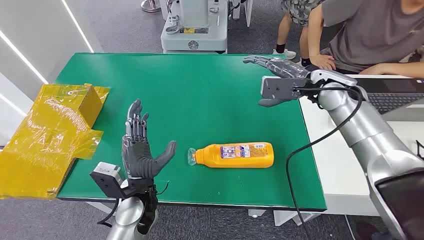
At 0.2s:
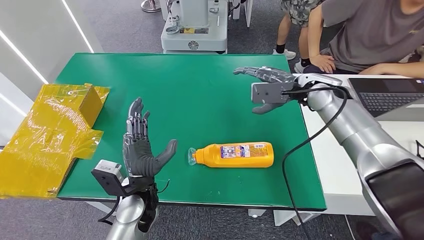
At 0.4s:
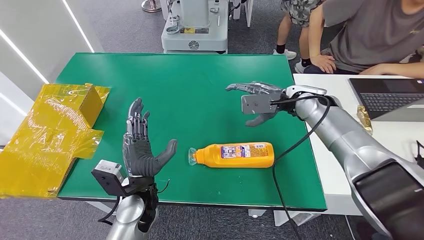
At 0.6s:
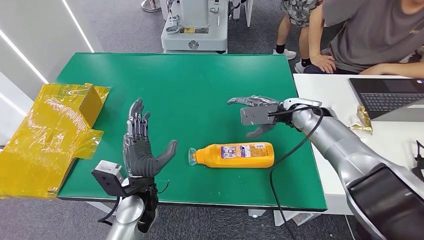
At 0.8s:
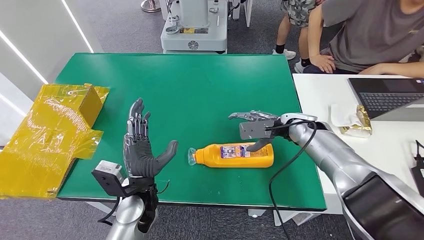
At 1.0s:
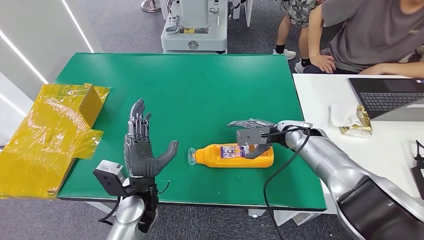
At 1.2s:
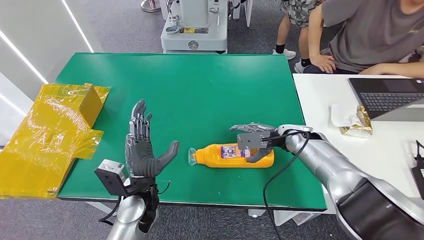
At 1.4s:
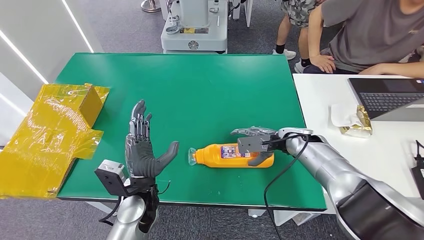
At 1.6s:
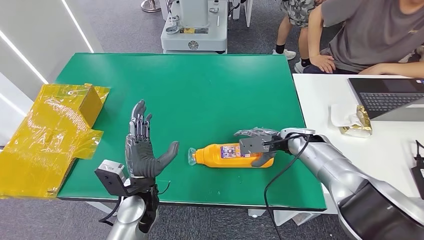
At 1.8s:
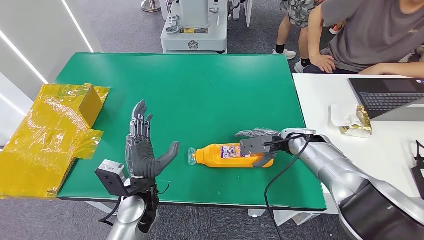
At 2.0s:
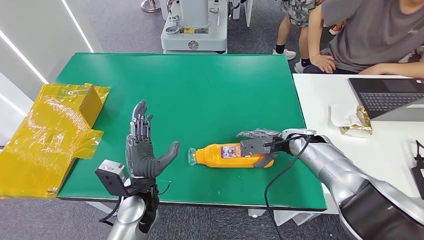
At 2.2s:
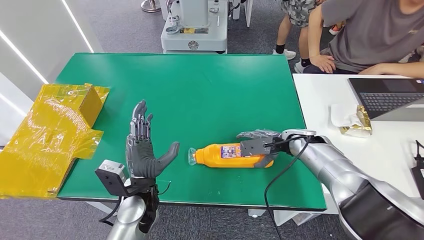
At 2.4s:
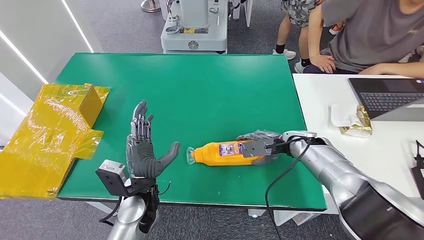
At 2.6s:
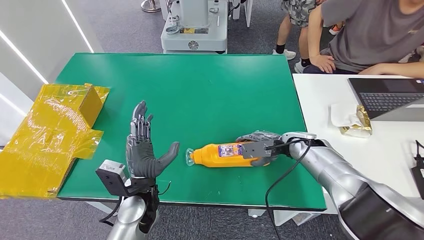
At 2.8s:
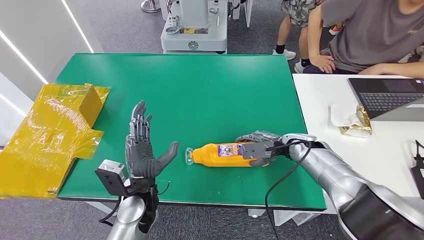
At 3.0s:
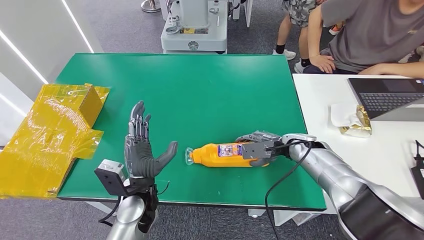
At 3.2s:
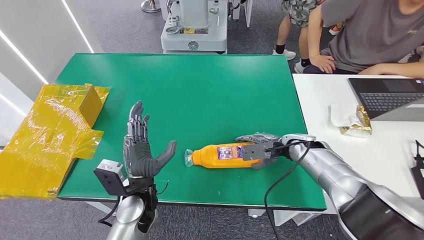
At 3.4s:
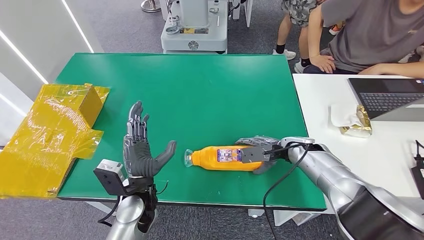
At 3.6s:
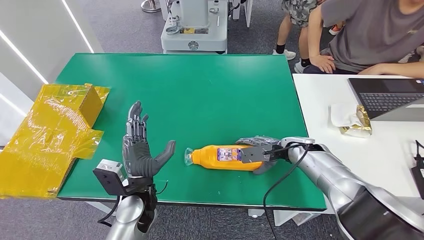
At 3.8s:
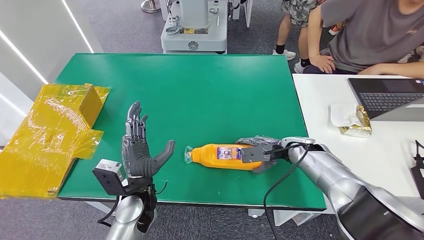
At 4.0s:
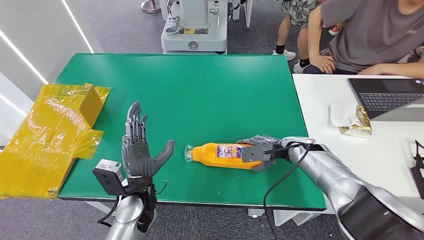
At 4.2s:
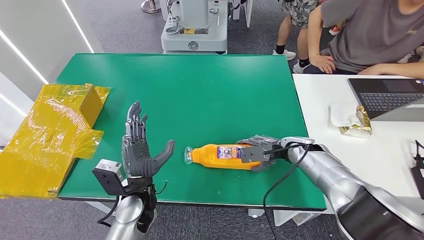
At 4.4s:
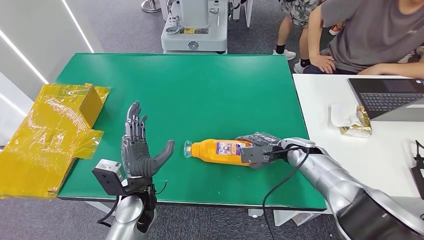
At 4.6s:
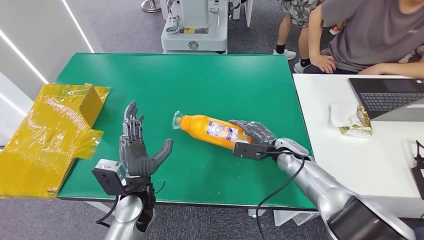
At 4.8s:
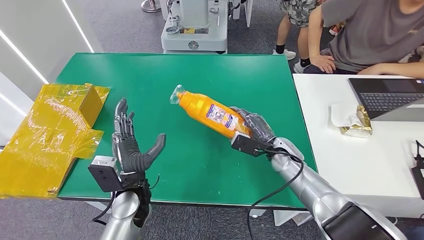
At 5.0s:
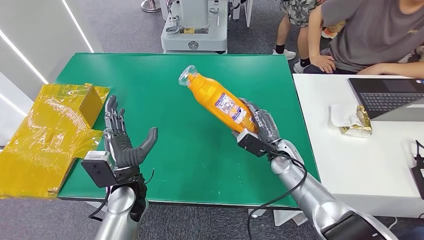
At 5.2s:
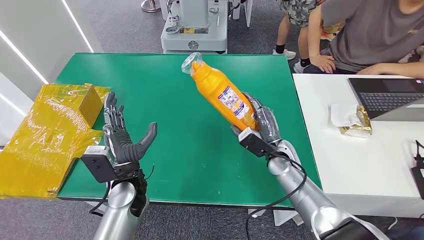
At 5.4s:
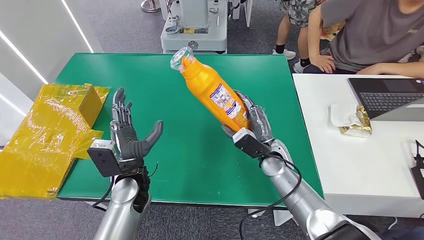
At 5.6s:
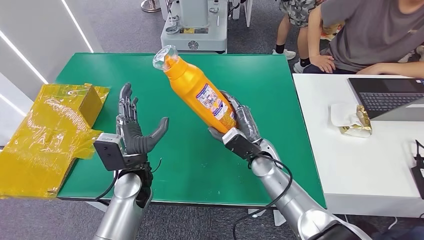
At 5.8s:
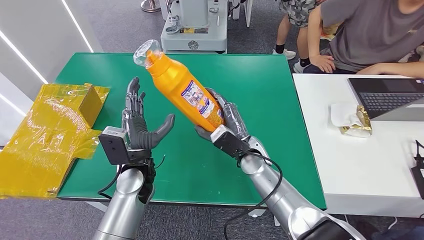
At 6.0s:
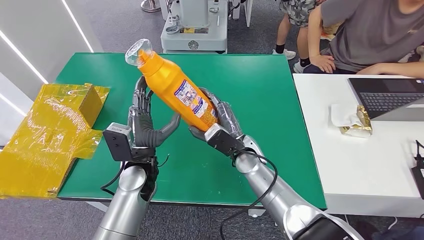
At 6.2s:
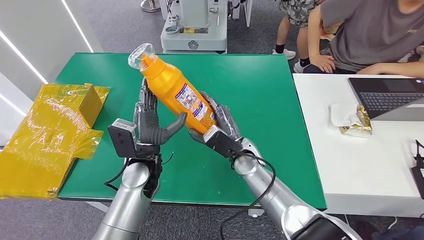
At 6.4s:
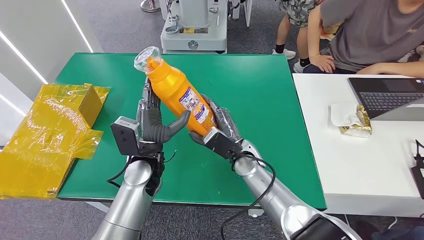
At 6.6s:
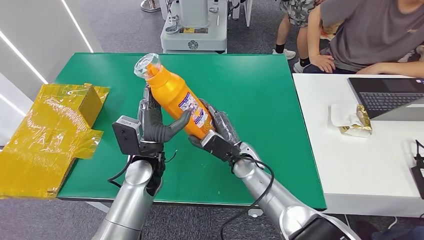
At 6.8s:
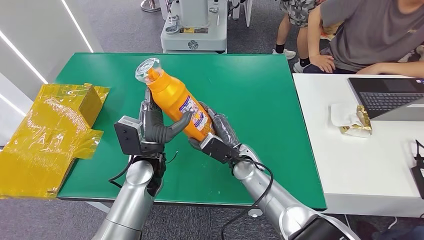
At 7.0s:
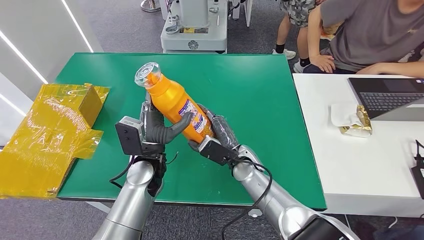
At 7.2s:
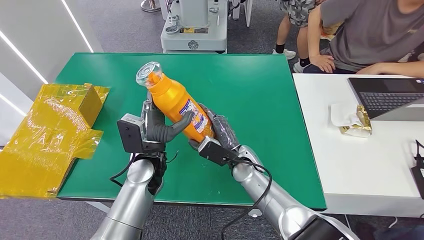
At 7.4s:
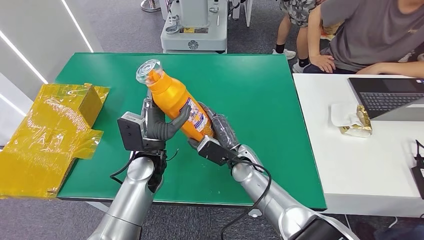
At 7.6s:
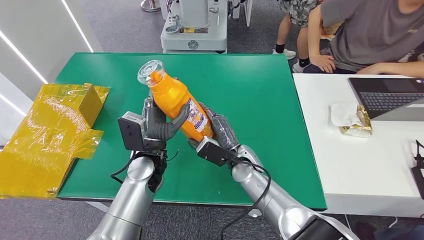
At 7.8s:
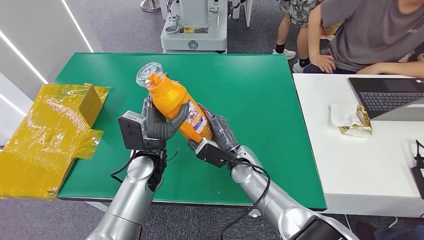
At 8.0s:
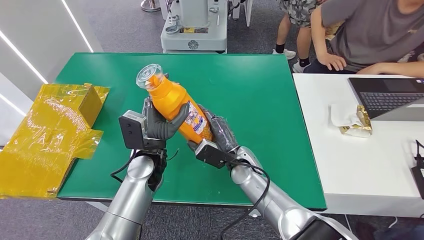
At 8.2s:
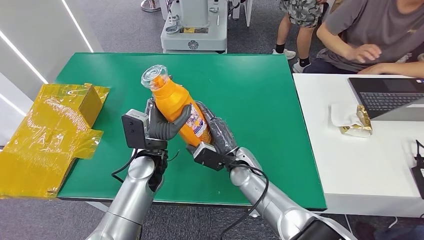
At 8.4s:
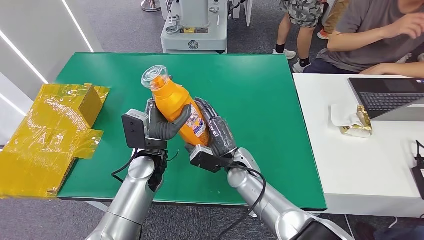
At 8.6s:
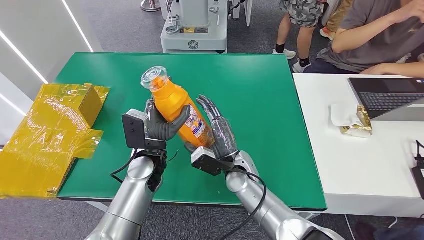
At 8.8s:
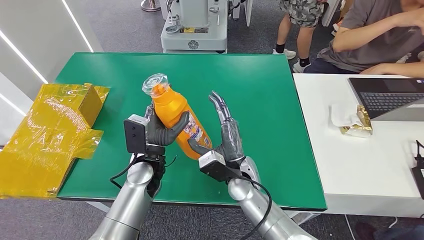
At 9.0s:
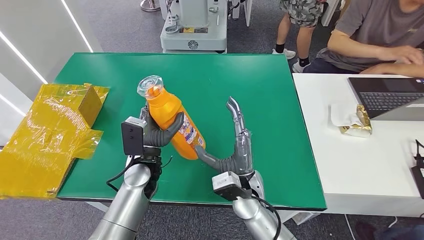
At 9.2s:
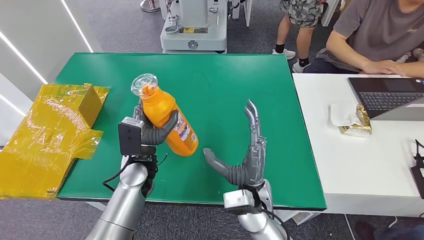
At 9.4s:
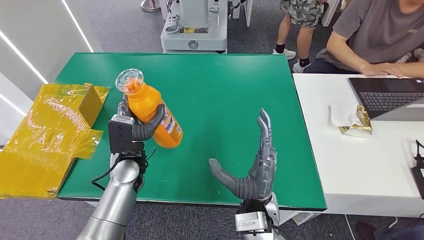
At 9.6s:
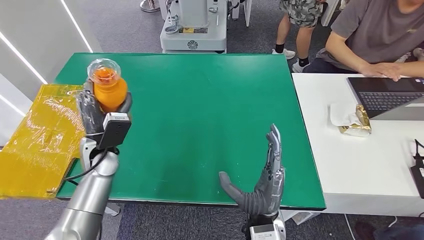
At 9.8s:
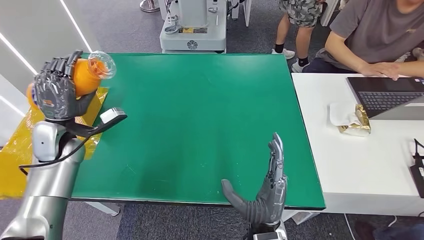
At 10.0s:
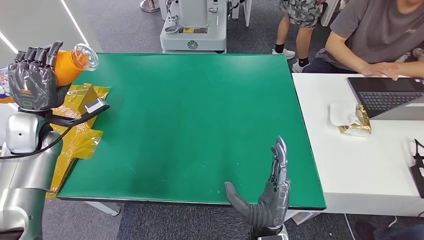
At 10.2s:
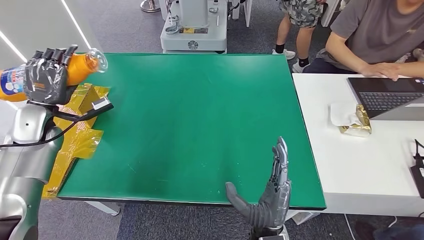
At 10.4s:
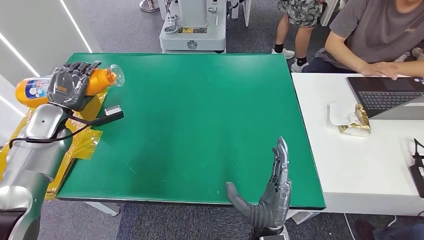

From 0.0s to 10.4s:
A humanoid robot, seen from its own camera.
Step, from 0.0s to 6.0s: Pick up the bottle from the table.
Step, from 6.4s to 10.4s: Turn the bottle to the front side.
From 1.4s to 4.4s: The hands move only a little.
From 4.4s to 6.0s: The left hand heads forward, covering about 5 cm. Meanwhile the right hand shifts roughly 15 cm to the left.
From 6.0s to 7.4s: The hands move only a little.
From 7.4s to 9.0s: The right hand heads backward, covering some 10 cm.

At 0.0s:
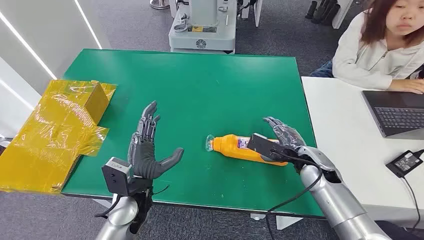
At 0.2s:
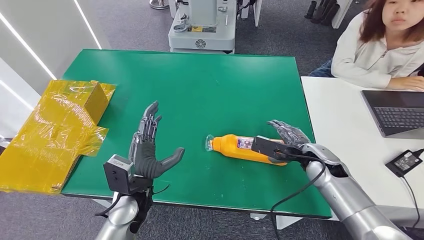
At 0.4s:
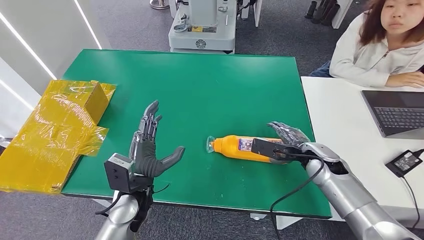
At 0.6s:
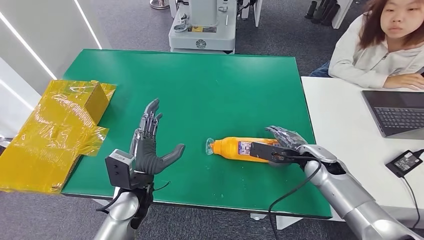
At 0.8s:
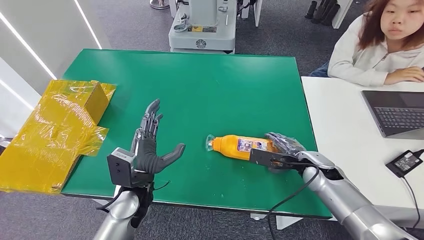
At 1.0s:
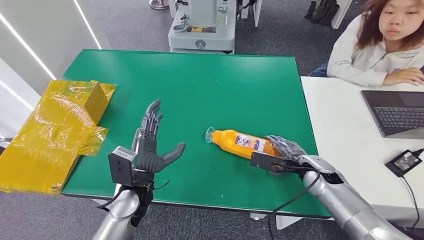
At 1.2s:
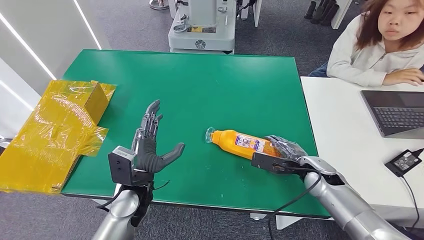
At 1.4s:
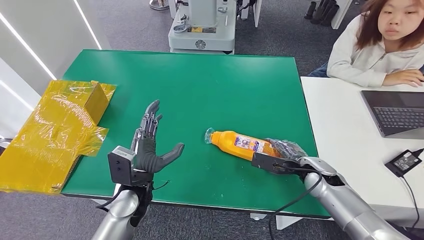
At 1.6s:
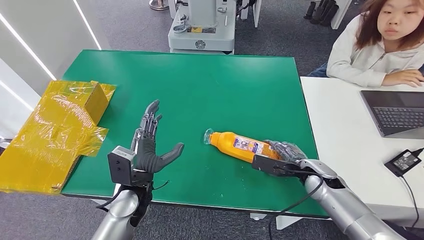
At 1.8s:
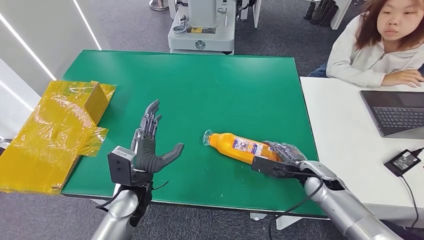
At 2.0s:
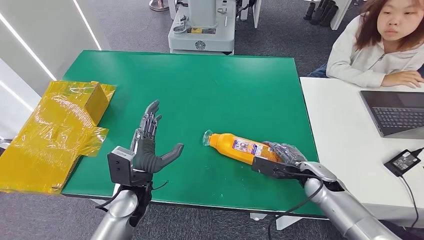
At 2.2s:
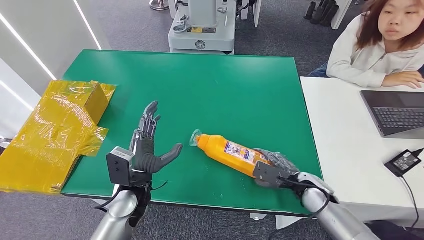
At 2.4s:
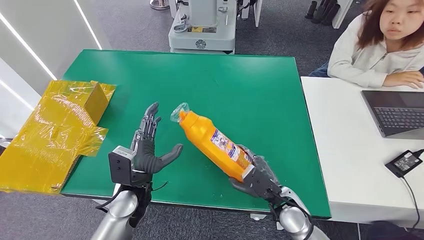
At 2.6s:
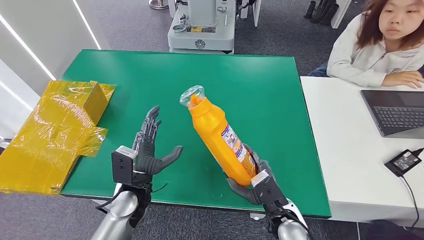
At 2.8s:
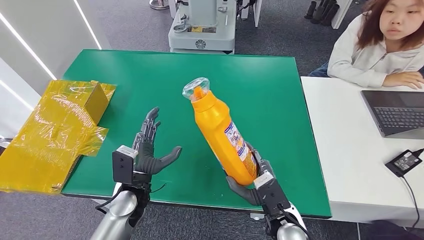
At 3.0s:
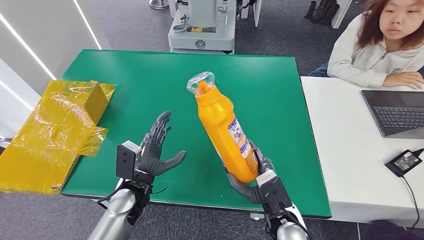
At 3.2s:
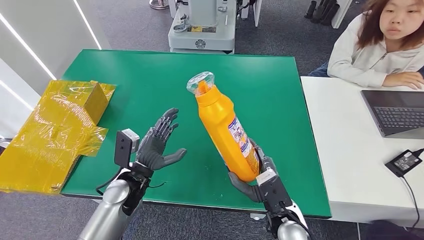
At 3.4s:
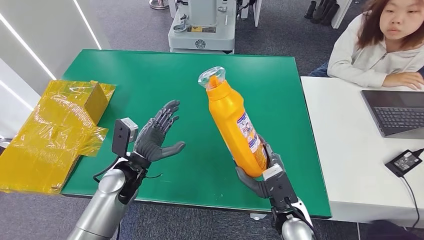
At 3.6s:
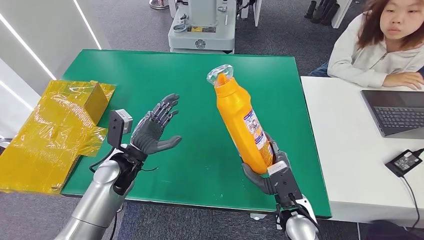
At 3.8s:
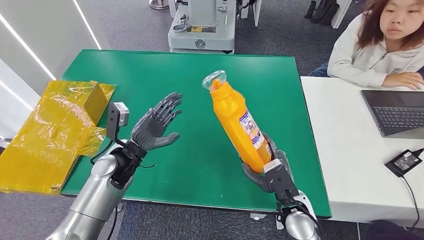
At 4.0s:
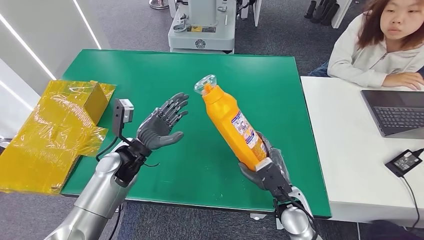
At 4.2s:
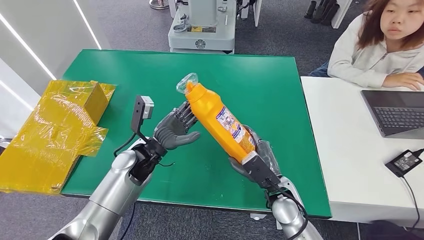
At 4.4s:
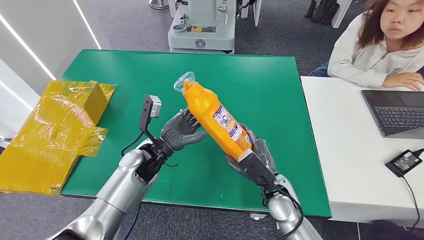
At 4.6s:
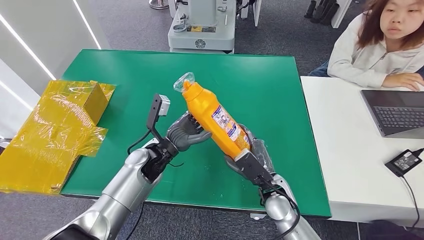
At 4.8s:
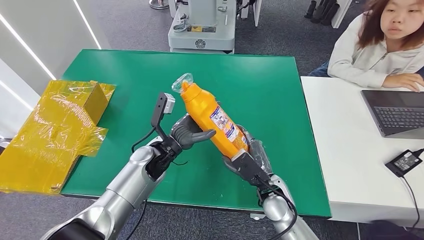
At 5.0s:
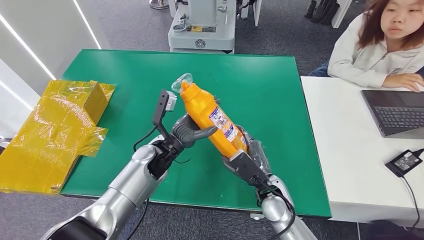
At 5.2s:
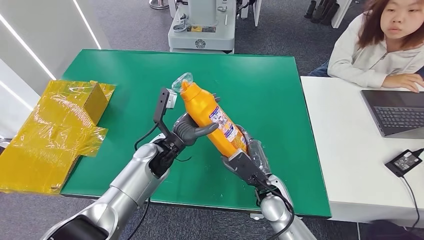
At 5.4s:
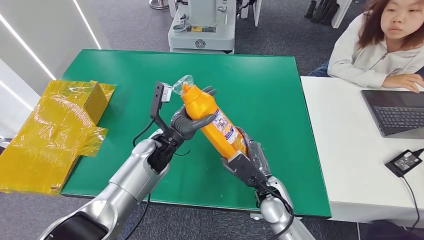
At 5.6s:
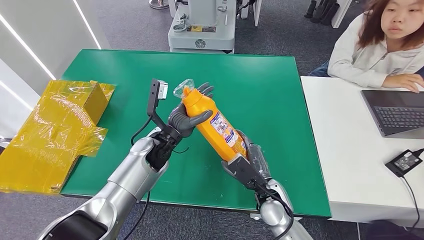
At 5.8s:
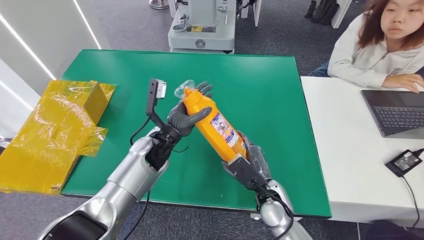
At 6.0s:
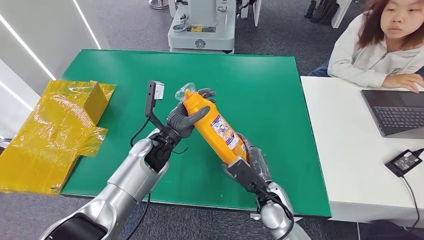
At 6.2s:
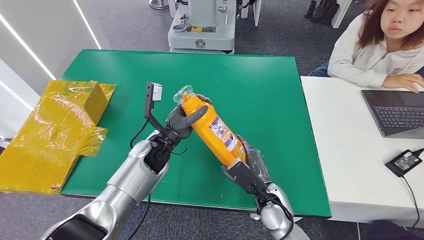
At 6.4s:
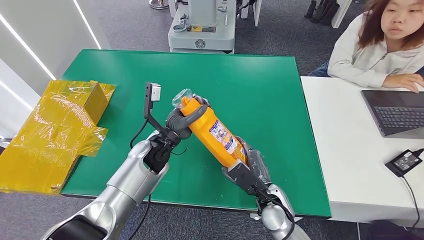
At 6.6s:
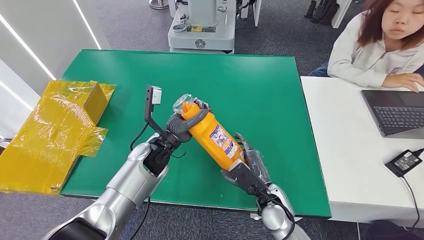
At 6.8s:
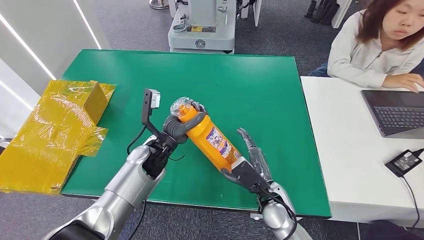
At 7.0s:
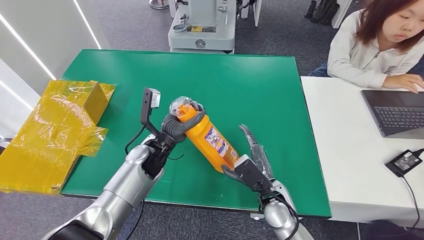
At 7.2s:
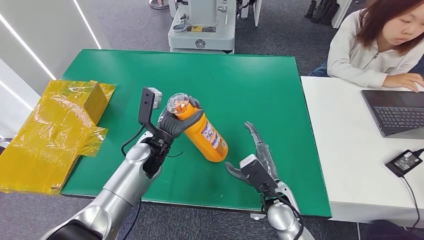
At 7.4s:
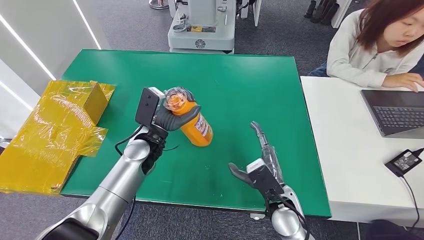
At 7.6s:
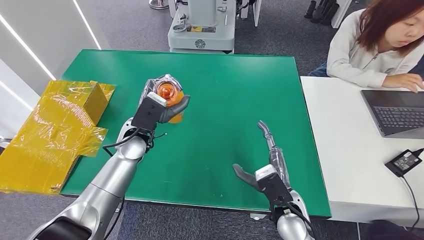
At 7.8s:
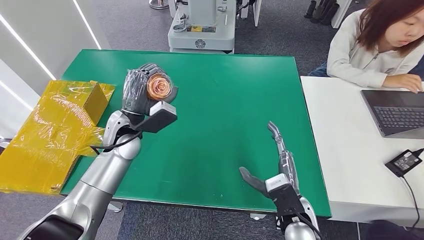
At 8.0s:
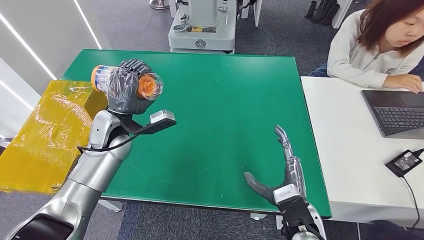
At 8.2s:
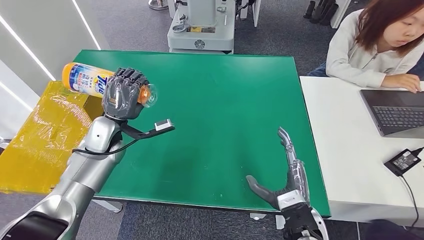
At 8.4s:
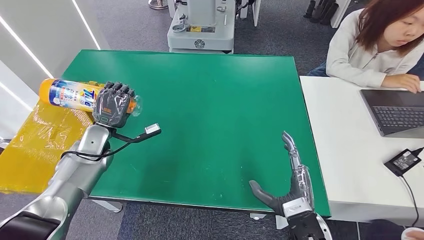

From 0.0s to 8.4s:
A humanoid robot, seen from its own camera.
Step, from 0.0s to 3.8s: Pick up the bottle from the table.
From 1.4s to 2.8s: The right hand travels to the left and backward by approximately 20 cm.
From 2.8s to 4.2s: Both hands move forward, some 5 cm.
From 4.2s to 5.6s: The left hand moves some 5 cm.
From 5.6s to 7.0s: There are only small adjustments of the hands.
